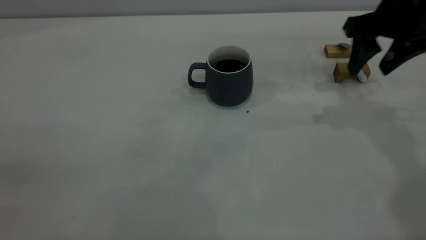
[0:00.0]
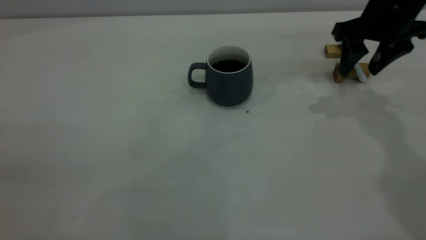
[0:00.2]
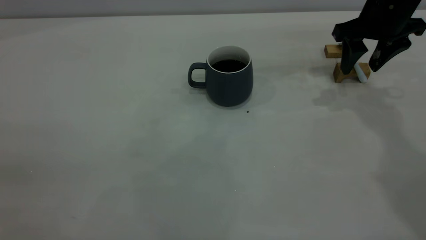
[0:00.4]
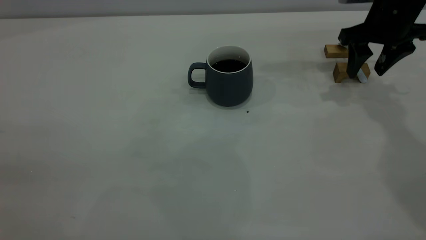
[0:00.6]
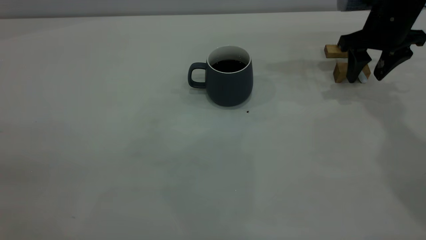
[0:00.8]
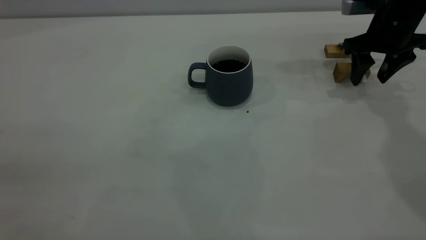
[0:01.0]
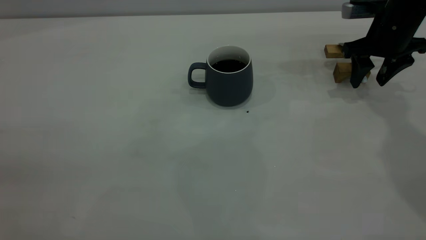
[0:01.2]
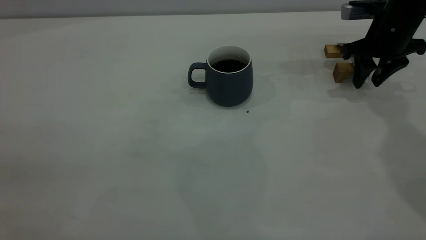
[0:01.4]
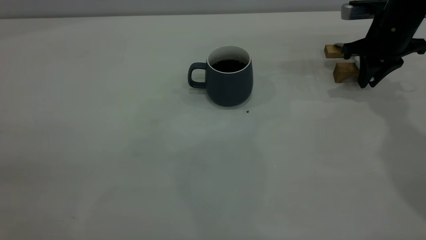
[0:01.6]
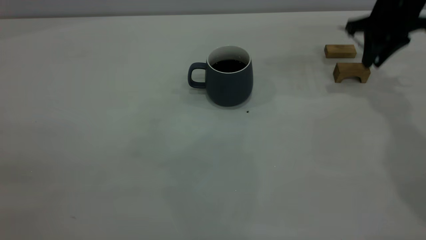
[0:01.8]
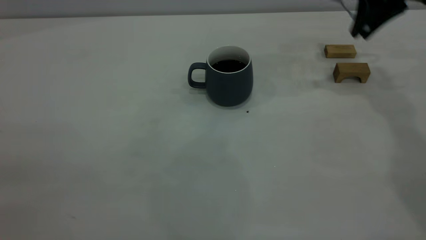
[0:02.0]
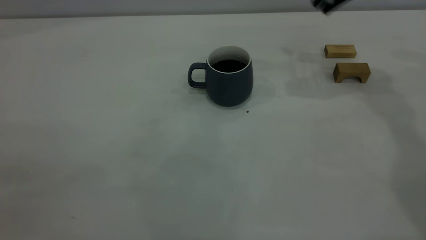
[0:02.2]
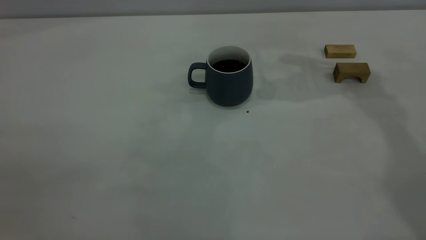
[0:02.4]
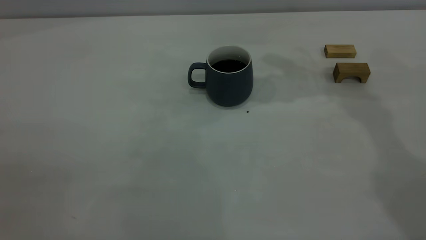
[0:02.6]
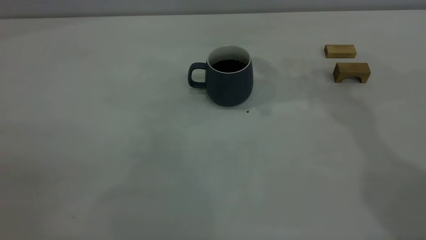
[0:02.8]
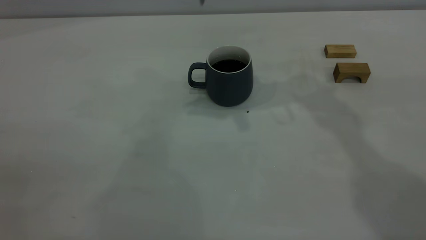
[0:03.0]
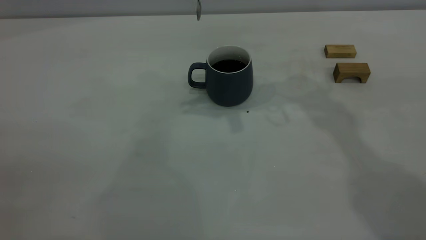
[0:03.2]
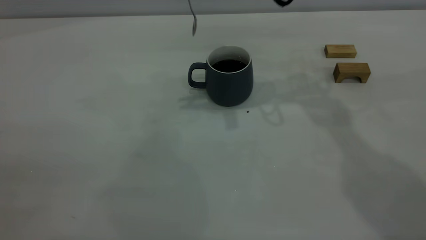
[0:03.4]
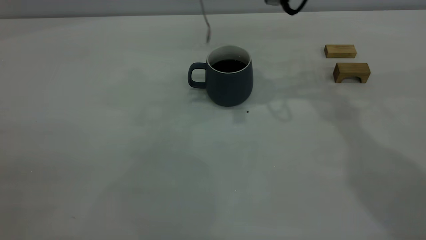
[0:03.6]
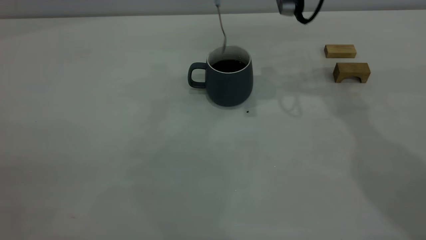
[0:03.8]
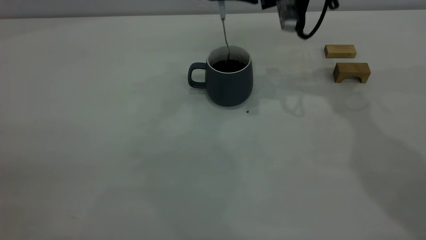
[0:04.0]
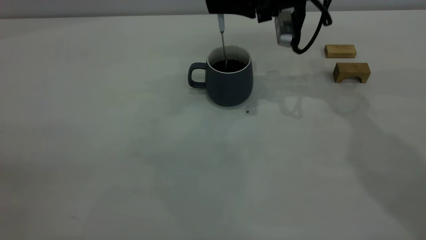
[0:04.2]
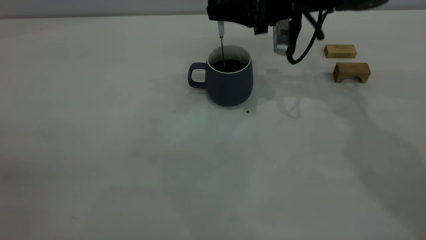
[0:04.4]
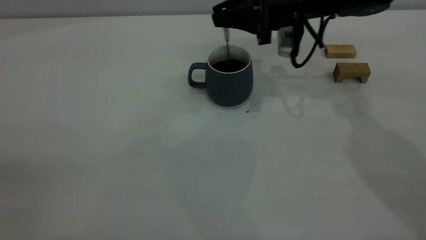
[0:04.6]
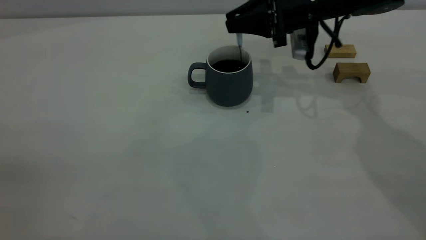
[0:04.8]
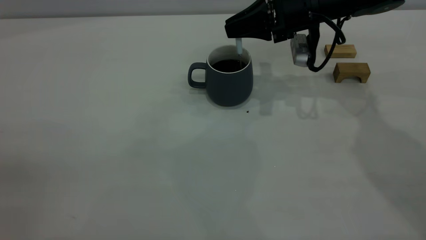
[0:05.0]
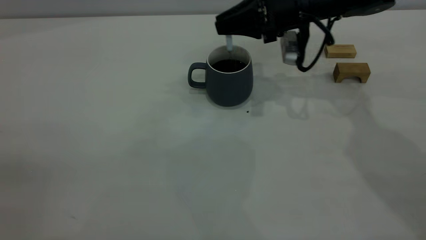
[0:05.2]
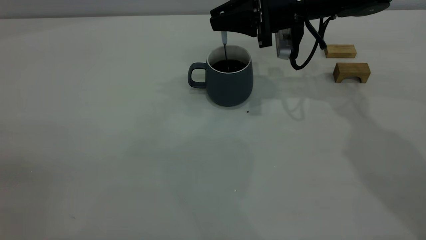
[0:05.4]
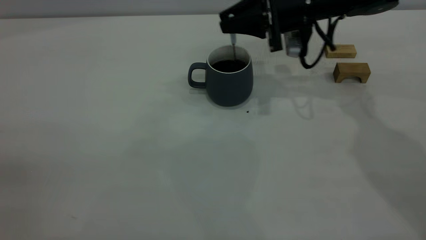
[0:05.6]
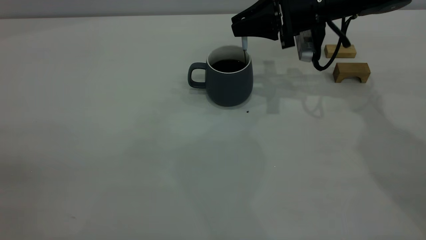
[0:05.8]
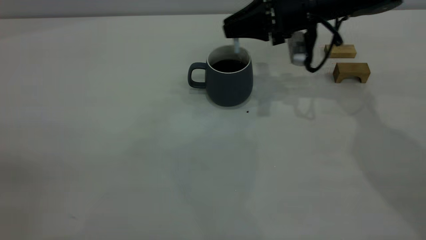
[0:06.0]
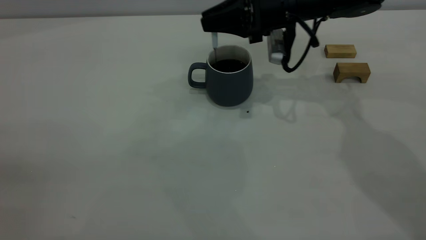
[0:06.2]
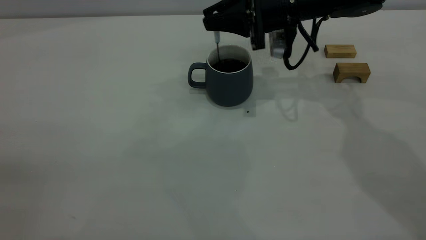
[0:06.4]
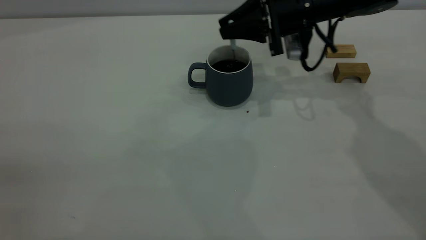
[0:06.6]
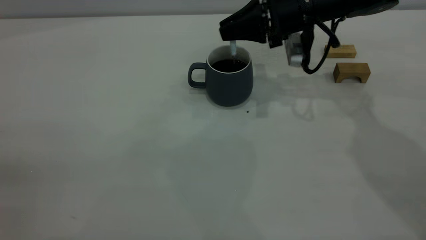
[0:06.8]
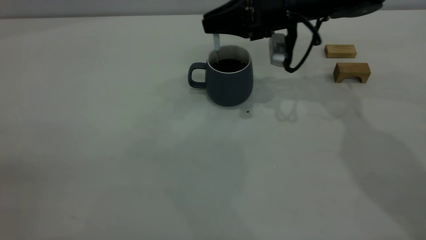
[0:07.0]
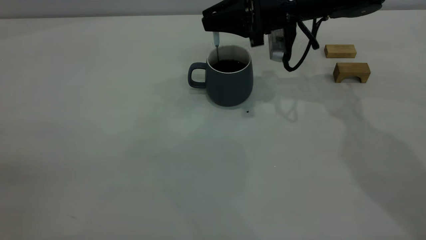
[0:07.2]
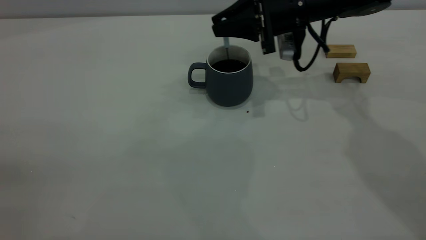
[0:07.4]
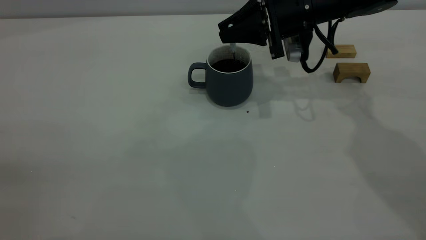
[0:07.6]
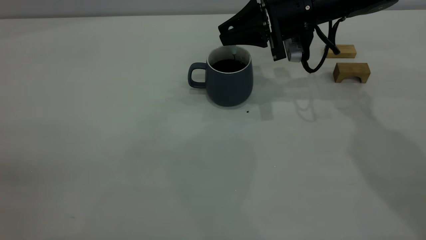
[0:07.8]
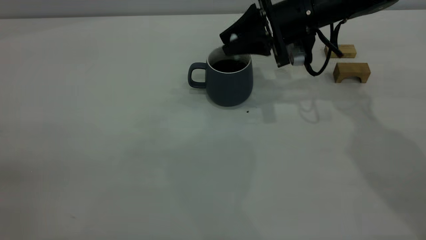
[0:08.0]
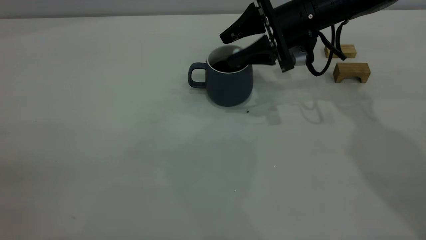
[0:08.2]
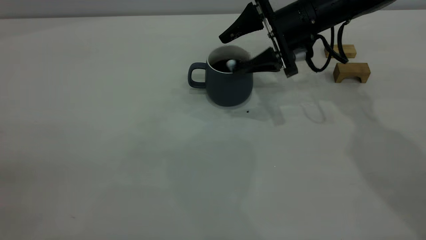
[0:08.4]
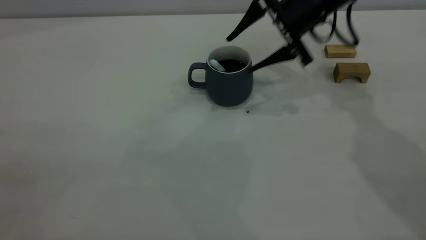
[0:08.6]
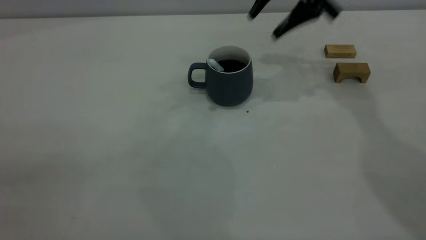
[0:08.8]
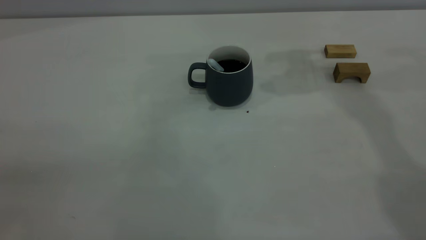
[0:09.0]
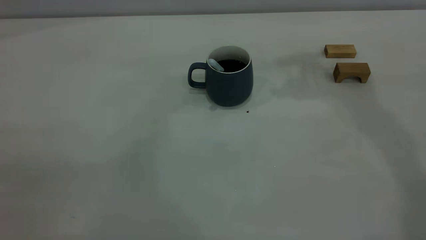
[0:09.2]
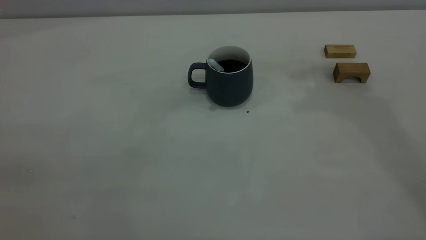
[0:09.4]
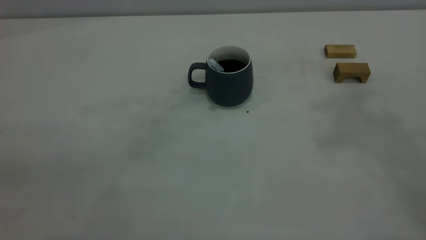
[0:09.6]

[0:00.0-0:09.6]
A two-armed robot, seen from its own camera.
Step, 0:02.0 to 0:08.8: Stir the coffee in the cup.
0:00.0 to 0:01.6: The right gripper travels downward and forward by roughly 10 cm, and closes its fingers.
0:01.6 to 0:03.2: The right gripper moves to the left and upward, approximately 25 cm.
0:03.2 to 0:04.8: The right gripper moves downward and to the right, about 15 cm.
0:04.8 to 0:06.4: There are only small adjustments of the grippers.
0:06.4 to 0:08.0: The right gripper opens up.
0:08.0 to 0:09.6: The right gripper is displaced upward and backward by roughly 40 cm, and opens, then closes again.

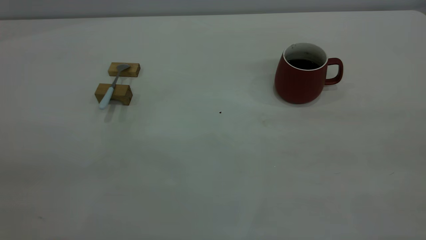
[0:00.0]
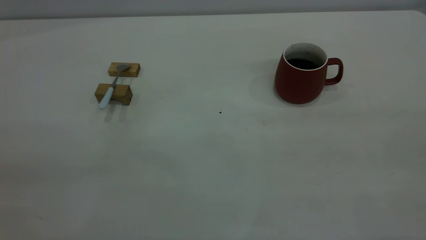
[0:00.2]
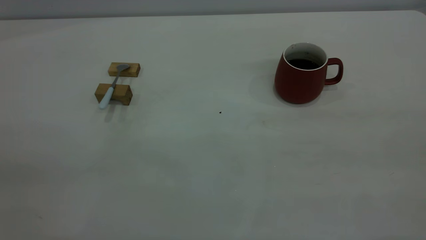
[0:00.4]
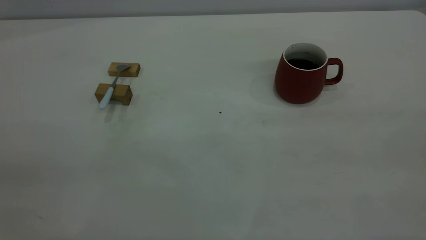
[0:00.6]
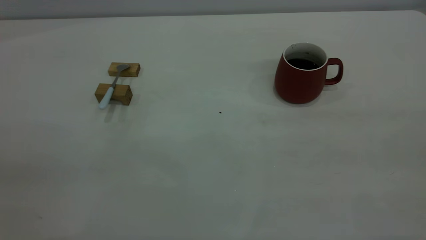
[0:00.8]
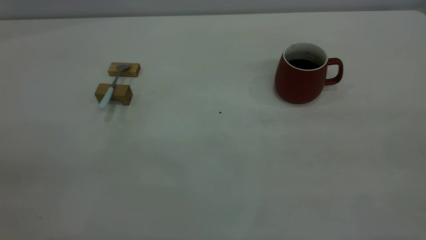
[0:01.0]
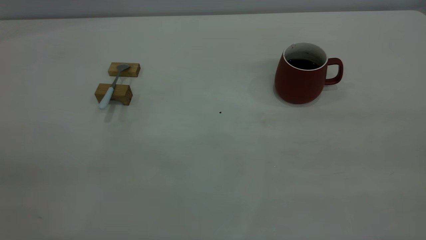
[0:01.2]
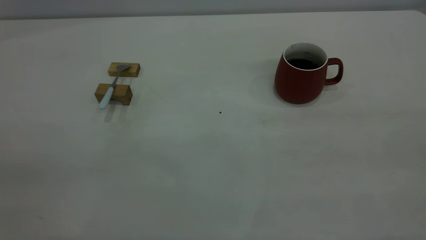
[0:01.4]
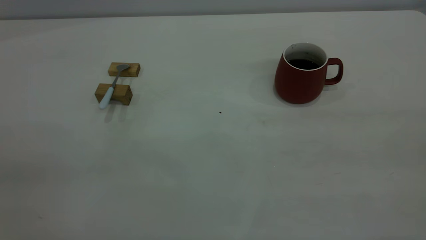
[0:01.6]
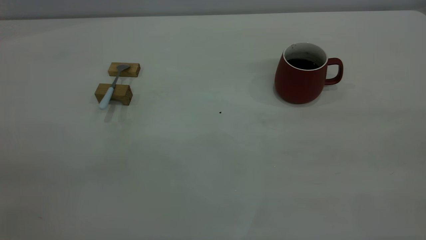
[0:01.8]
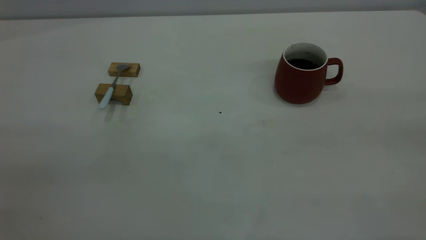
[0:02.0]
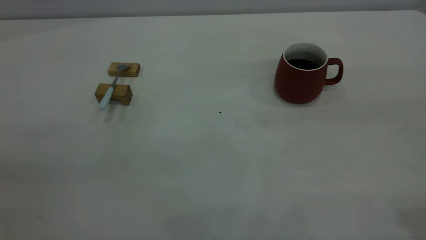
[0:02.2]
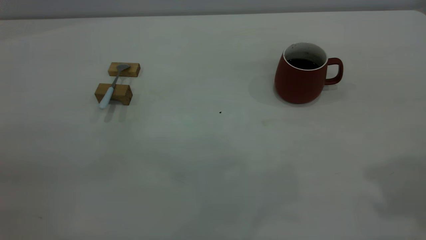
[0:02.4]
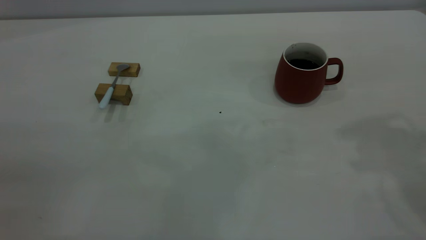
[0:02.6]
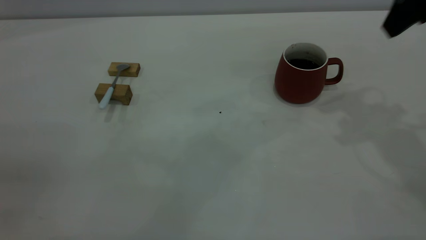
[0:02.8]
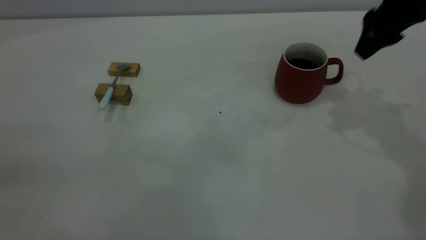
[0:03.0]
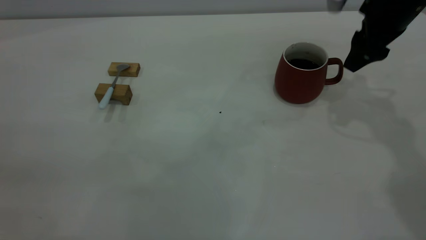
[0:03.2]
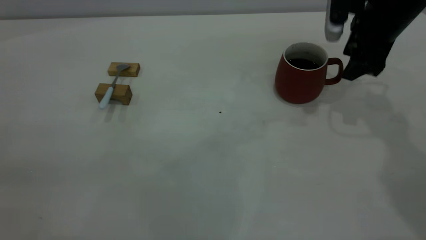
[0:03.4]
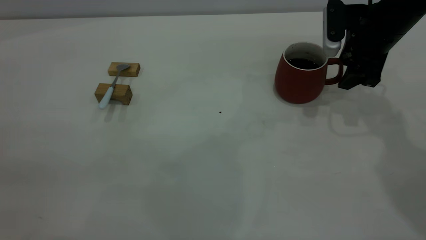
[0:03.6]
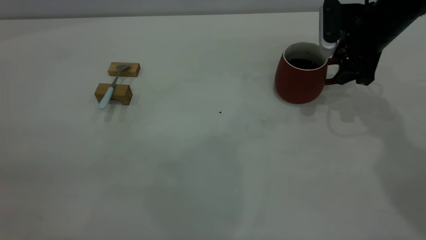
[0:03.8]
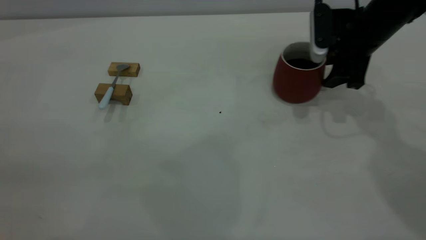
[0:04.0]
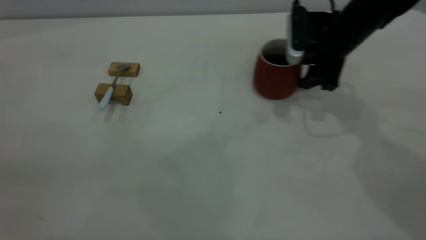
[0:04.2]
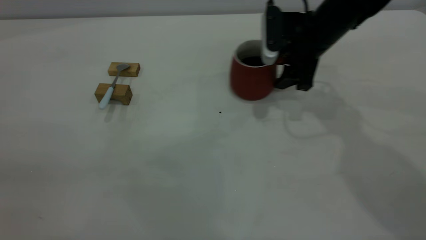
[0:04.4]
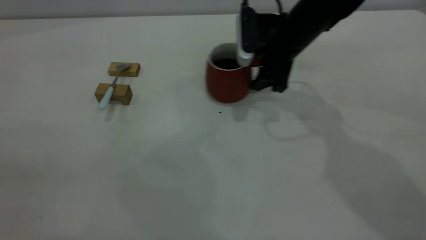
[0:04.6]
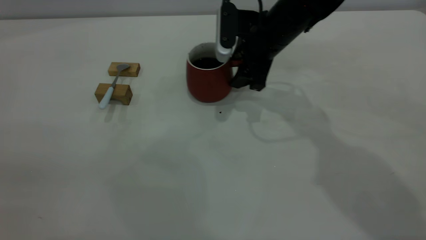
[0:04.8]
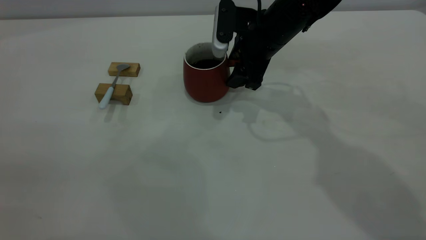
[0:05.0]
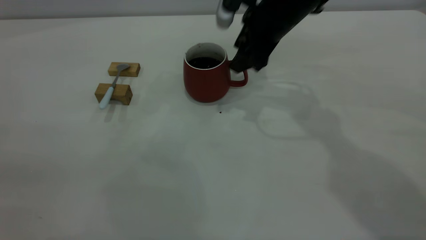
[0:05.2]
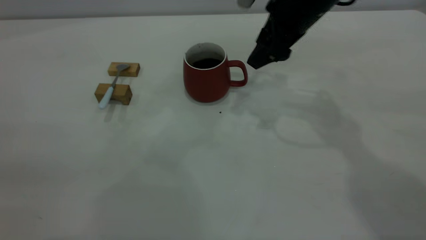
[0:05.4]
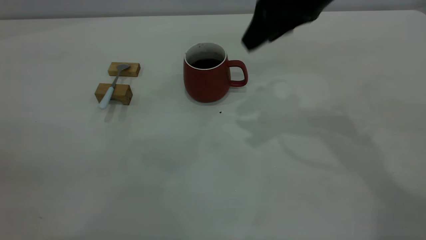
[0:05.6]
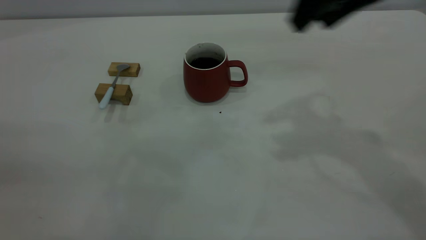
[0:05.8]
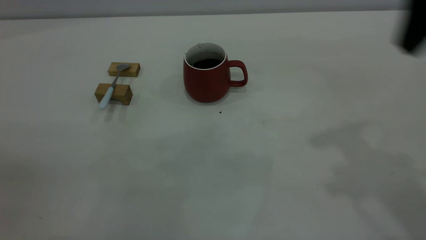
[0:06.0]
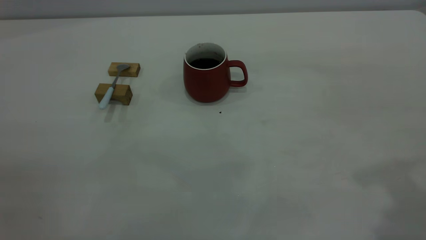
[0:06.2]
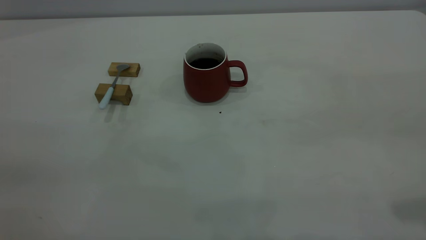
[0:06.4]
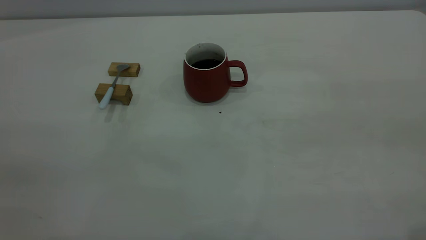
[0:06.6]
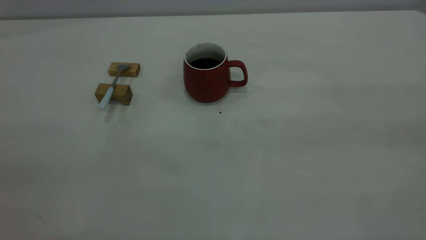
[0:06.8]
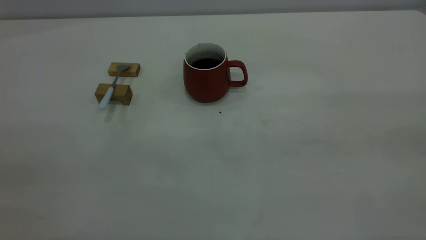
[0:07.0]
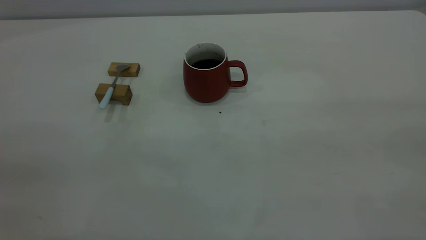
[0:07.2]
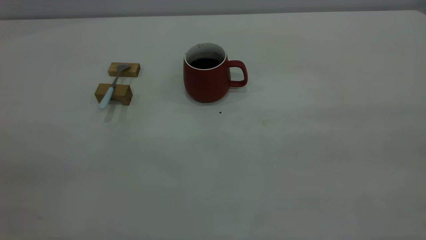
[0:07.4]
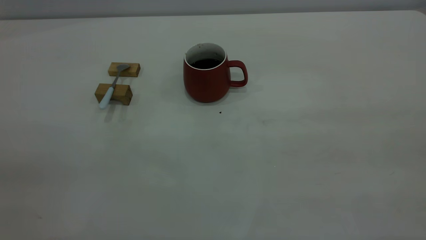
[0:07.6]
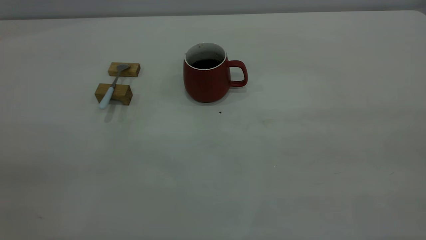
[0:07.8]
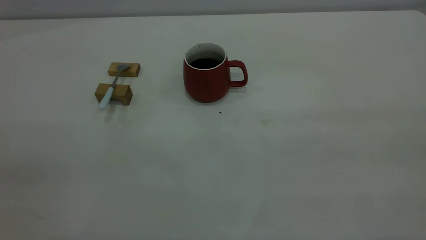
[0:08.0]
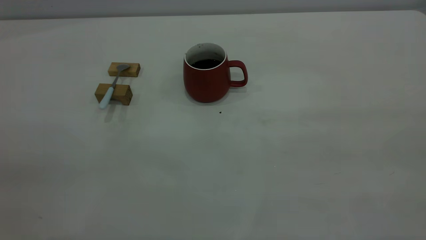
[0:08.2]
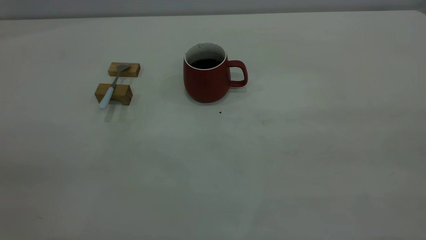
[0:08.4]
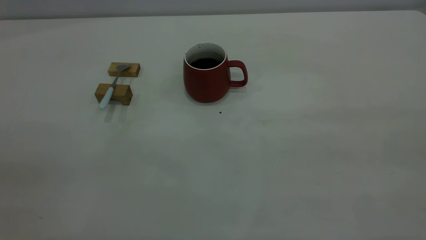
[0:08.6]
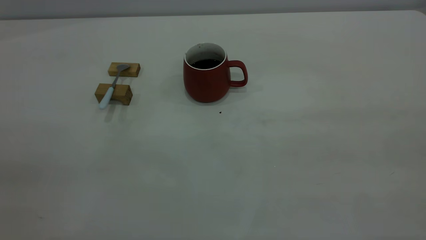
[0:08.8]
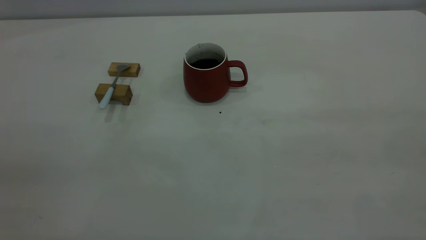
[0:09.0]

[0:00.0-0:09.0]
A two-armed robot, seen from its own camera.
Step, 0:00.0 to 0:05.4: Move the cup with coffee to the center of view.
0:00.0 to 0:01.6: Neither gripper changes place.
0:01.6 to 0:03.0: The right gripper goes approximately 40 cm forward and downward.
0:03.0 to 0:04.4: The right gripper shifts roughly 15 cm to the left and downward.
0:04.4 to 0:06.0: The right gripper is displaced upward and backward by some 30 cm.
0:06.0 to 0:07.6: The right gripper is displaced backward by roughly 25 cm.
0:07.6 to 0:09.0: The two grippers keep their place.
